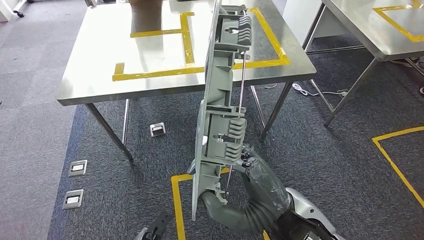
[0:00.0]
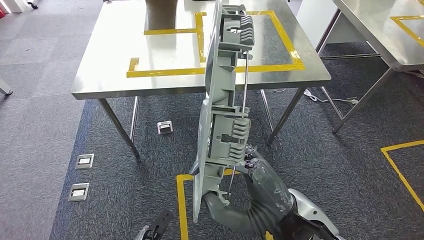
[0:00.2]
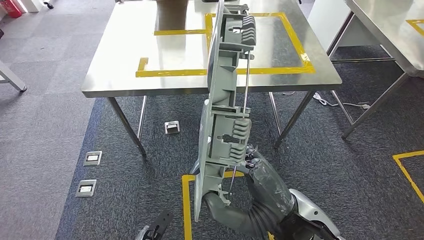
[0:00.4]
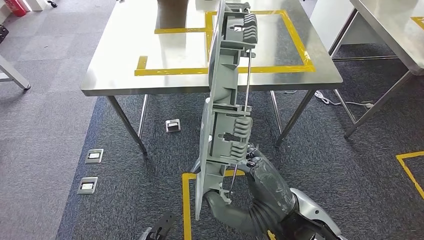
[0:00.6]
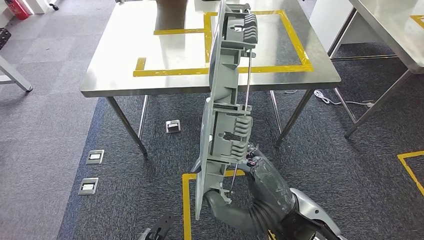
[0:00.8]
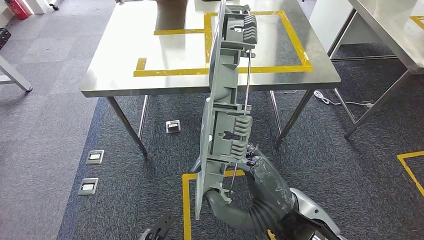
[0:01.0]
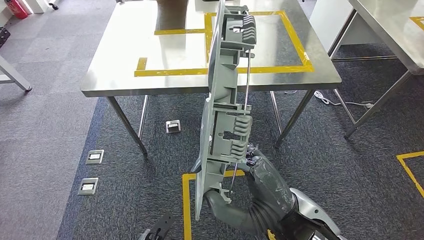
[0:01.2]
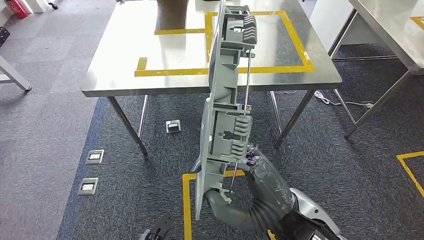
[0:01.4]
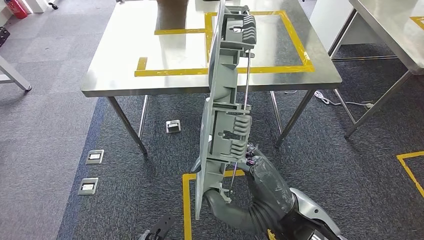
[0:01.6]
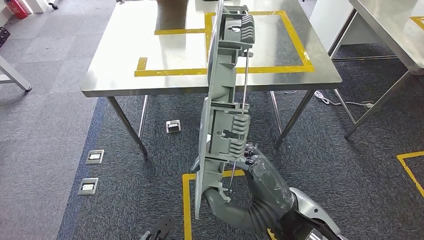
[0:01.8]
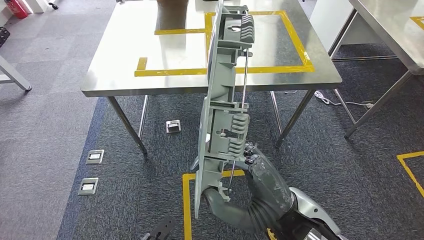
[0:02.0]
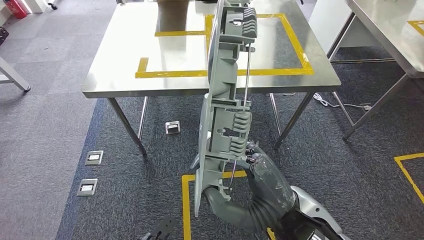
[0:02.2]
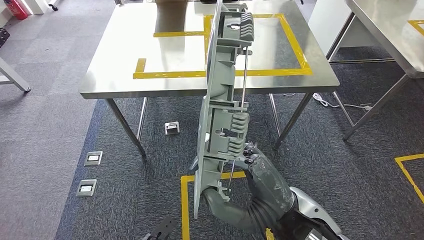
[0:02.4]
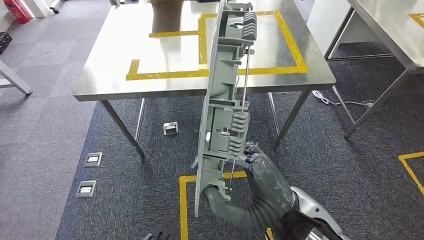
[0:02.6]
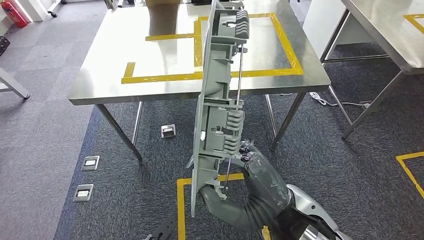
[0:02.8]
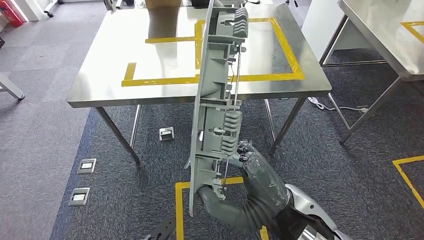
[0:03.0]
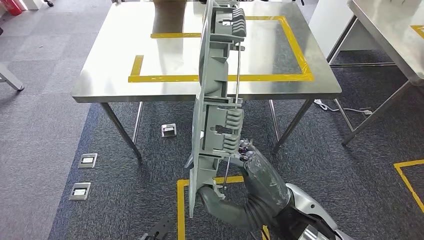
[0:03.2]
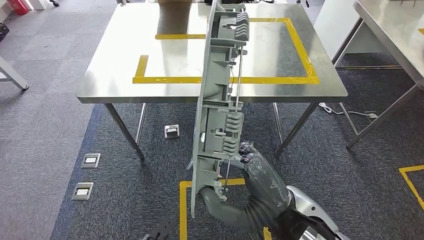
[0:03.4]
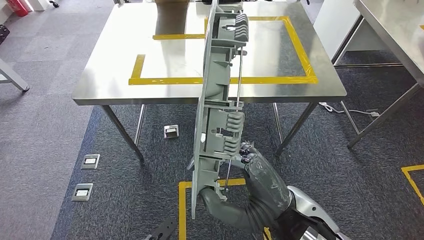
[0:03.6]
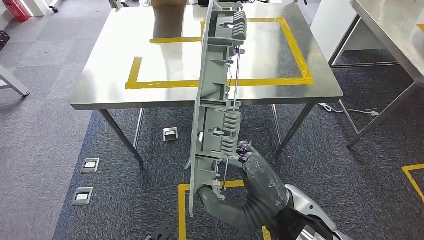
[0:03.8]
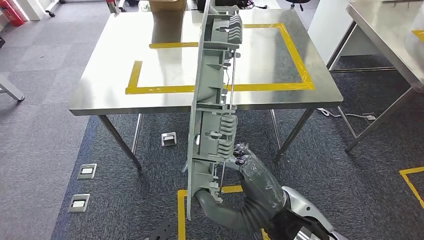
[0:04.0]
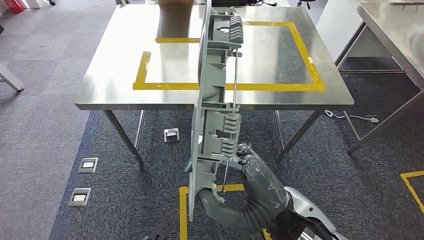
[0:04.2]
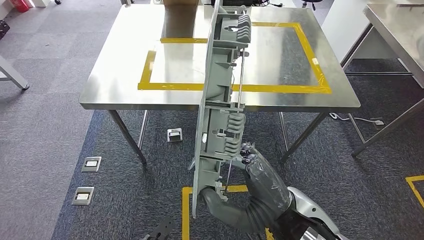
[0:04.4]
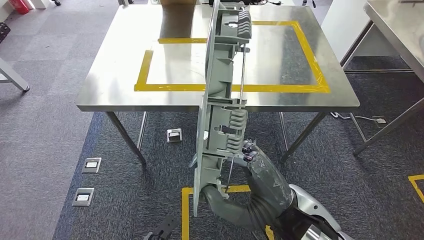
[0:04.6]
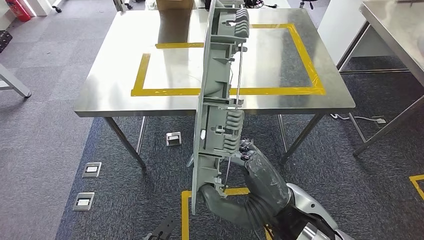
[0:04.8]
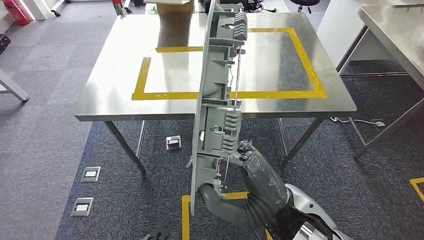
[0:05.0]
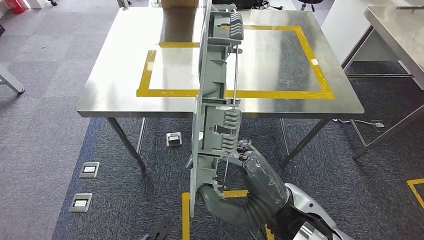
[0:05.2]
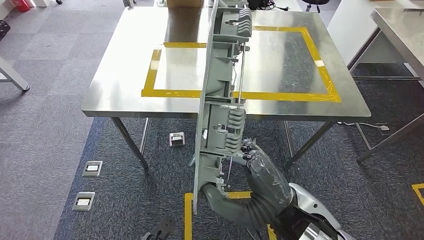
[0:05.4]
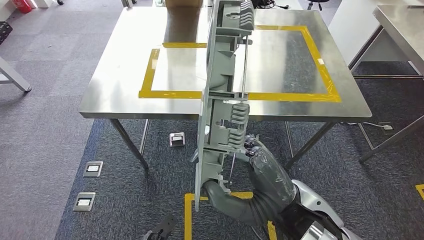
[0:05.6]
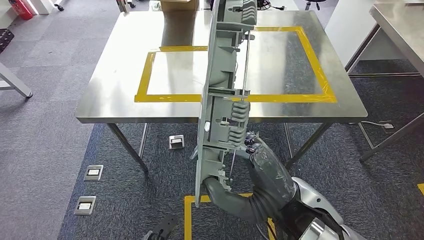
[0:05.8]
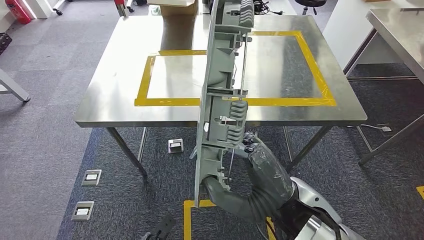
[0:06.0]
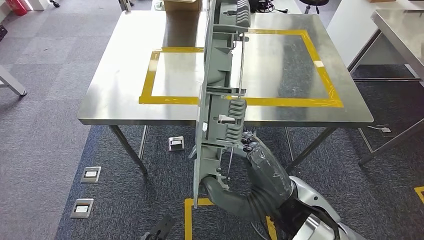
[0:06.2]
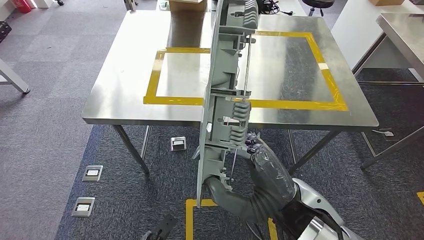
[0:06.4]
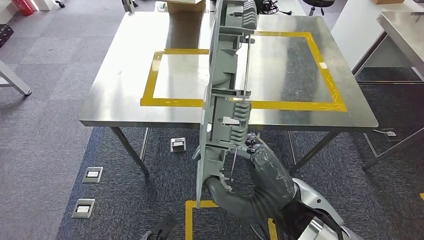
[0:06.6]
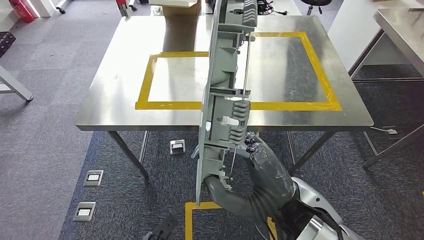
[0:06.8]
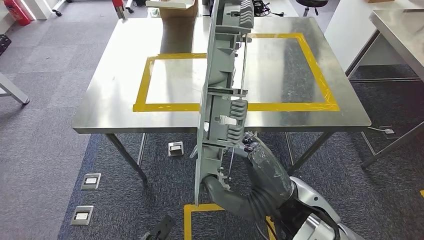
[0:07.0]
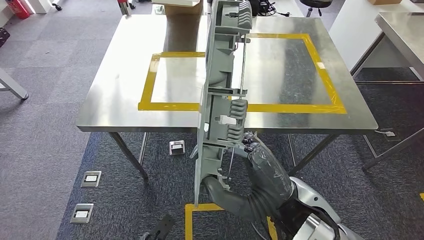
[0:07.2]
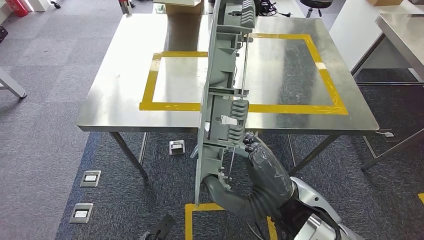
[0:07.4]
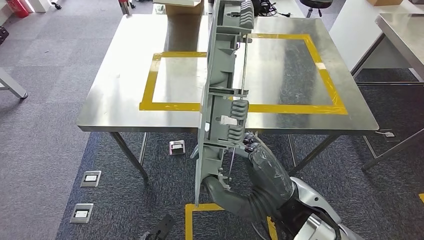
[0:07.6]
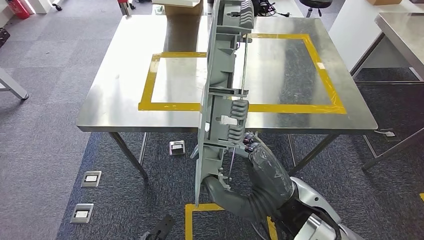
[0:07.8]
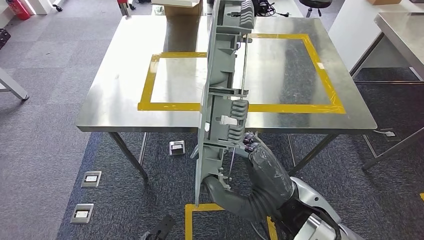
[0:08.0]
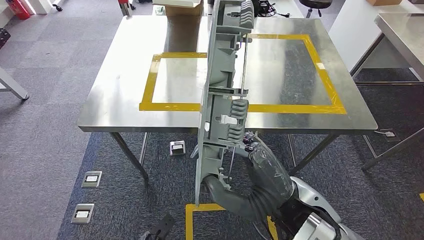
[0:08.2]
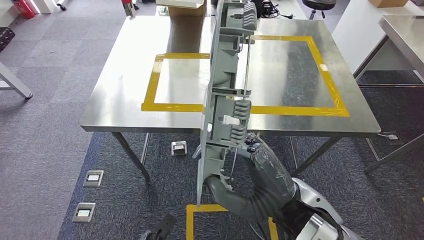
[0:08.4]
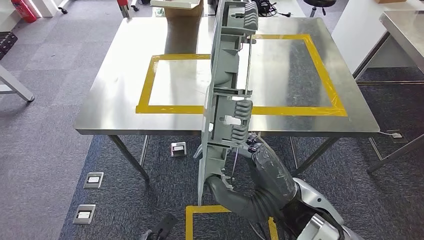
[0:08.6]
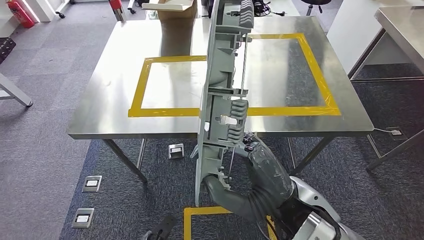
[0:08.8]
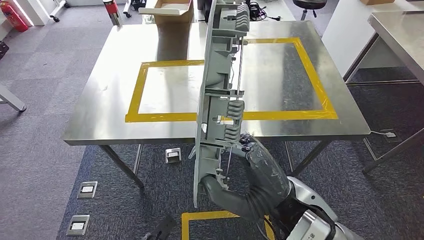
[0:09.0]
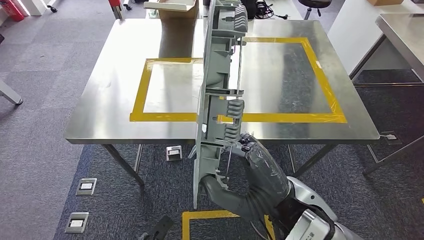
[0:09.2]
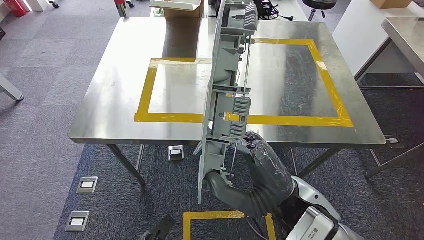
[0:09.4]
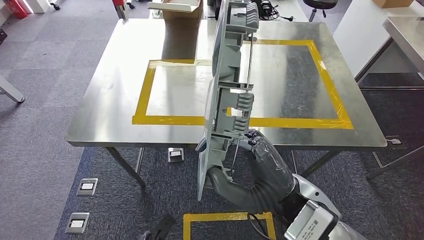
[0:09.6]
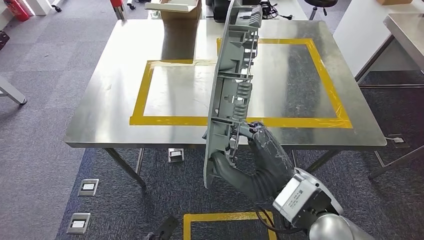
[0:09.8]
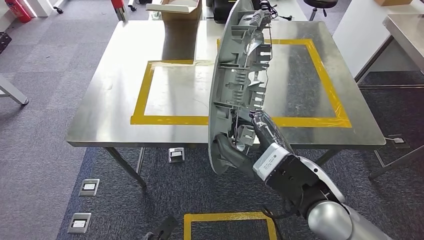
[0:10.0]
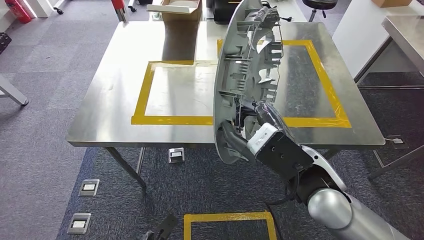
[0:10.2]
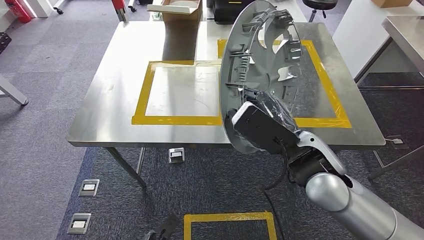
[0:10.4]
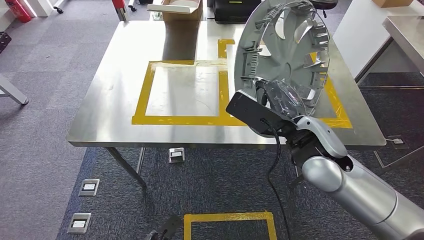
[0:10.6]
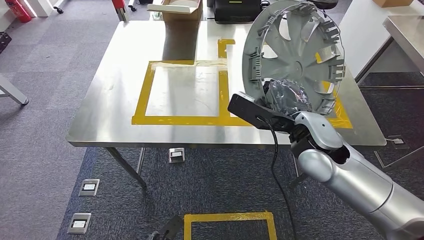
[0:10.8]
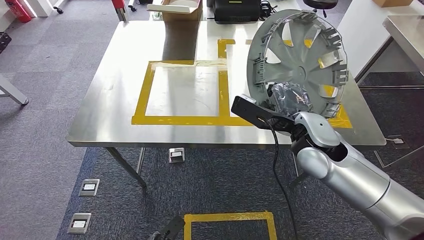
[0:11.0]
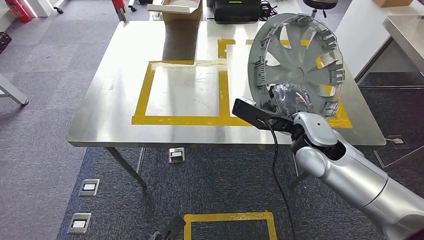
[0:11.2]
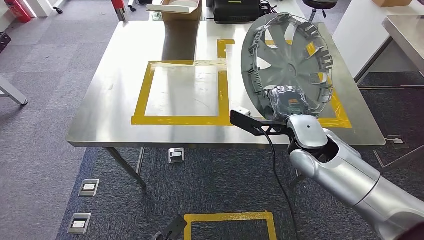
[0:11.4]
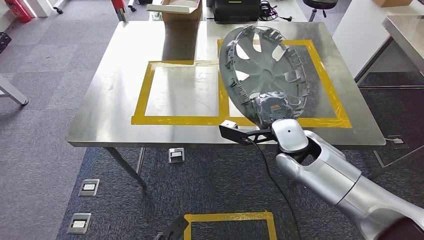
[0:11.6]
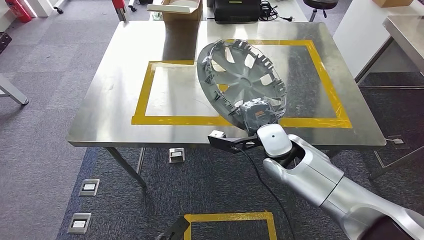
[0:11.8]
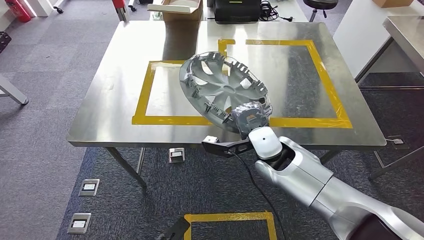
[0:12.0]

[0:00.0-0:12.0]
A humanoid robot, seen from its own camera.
Step, 0:00.0 to 0:07.0: Move the large material to the workbench.
0:06.0 to 0:07.6: The two hands keep their place.
0:10.4 to 0:12.0: The right hand moves downward and forward, about 10 cm.

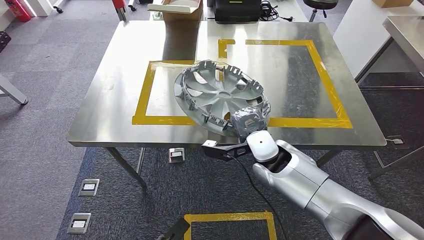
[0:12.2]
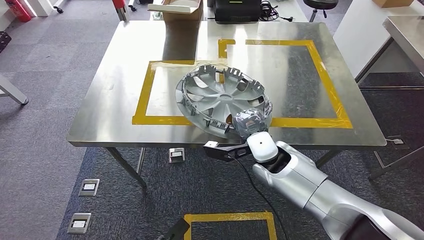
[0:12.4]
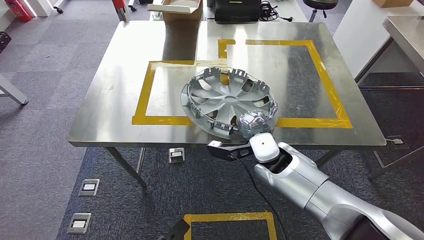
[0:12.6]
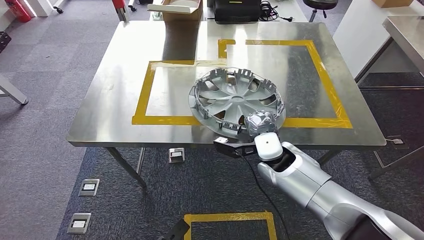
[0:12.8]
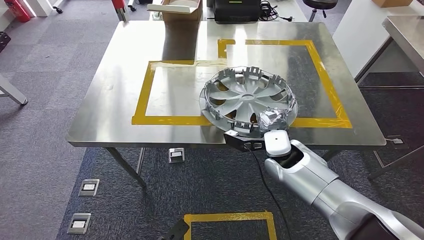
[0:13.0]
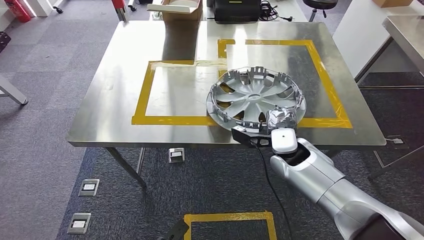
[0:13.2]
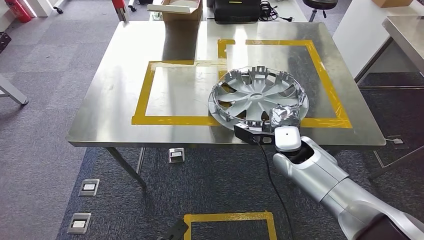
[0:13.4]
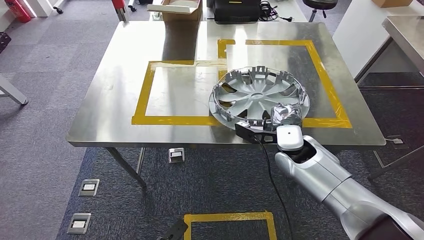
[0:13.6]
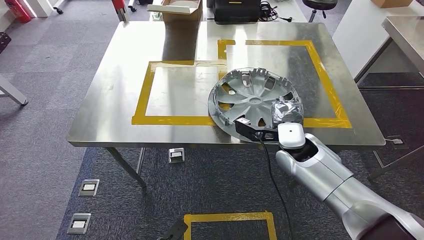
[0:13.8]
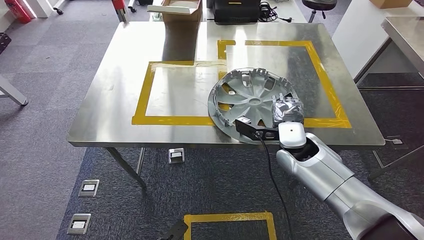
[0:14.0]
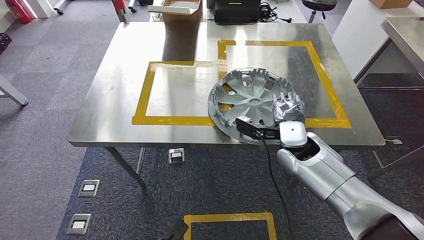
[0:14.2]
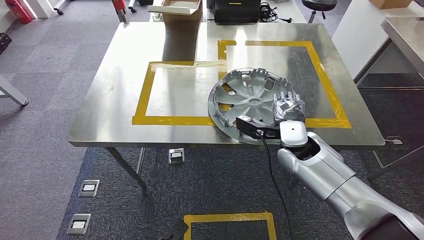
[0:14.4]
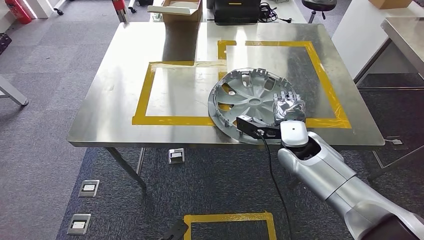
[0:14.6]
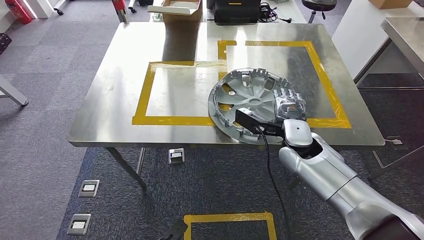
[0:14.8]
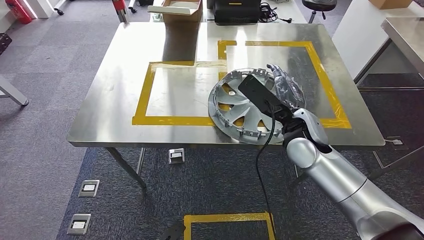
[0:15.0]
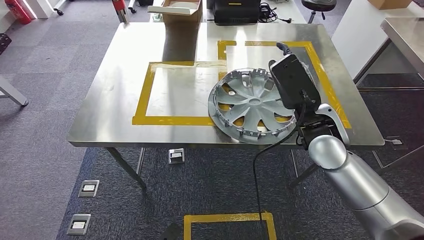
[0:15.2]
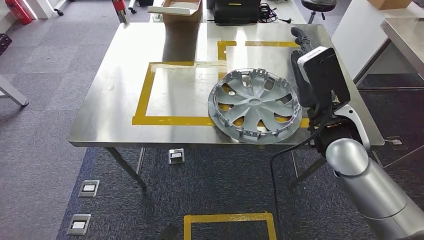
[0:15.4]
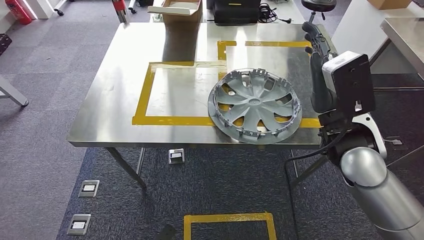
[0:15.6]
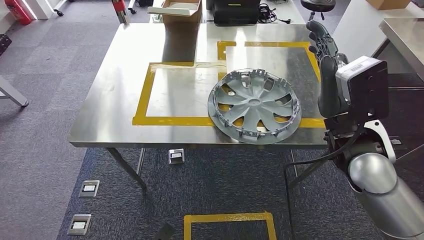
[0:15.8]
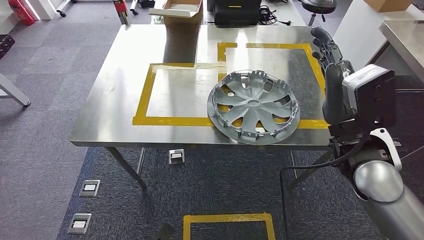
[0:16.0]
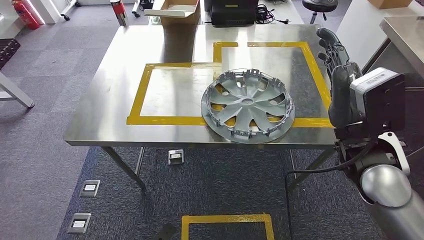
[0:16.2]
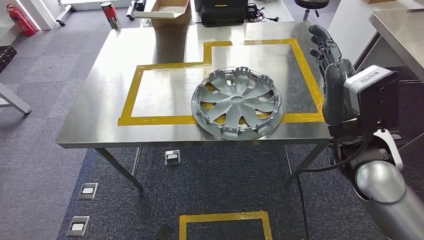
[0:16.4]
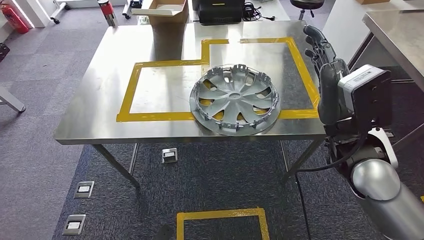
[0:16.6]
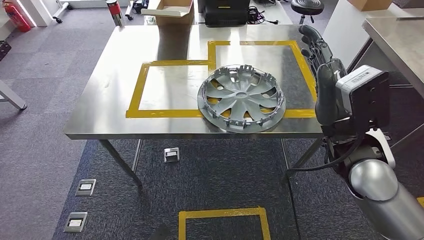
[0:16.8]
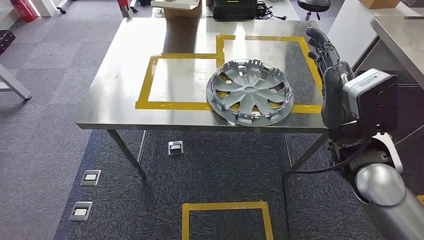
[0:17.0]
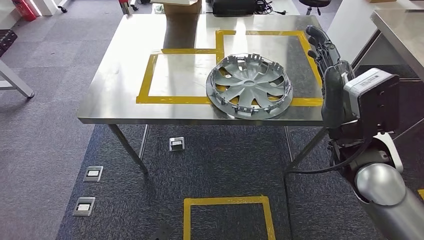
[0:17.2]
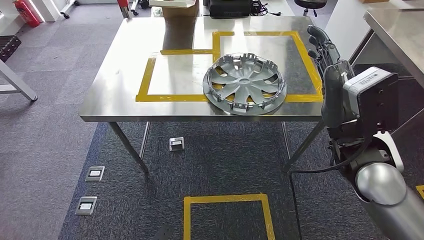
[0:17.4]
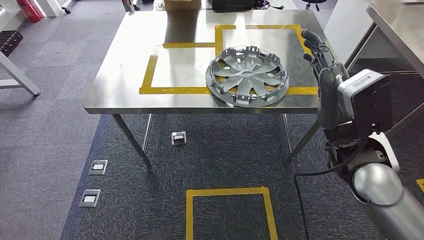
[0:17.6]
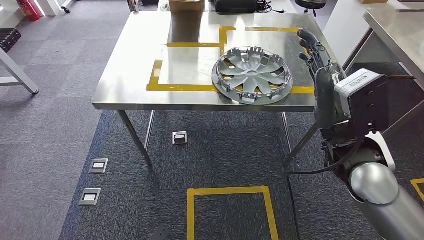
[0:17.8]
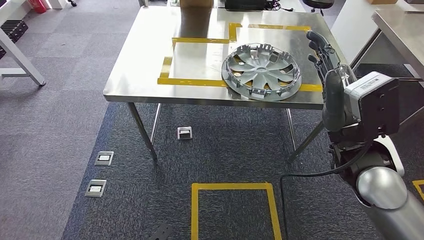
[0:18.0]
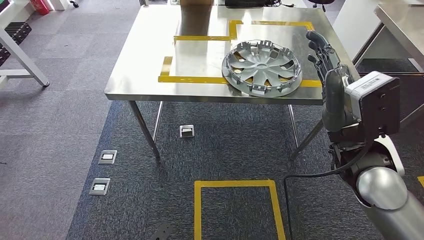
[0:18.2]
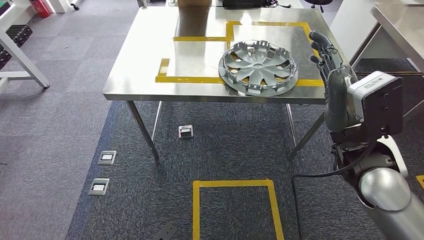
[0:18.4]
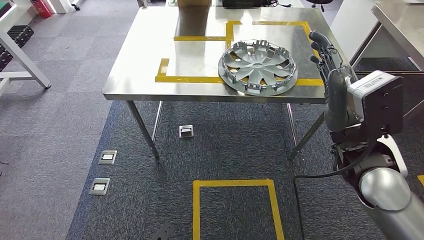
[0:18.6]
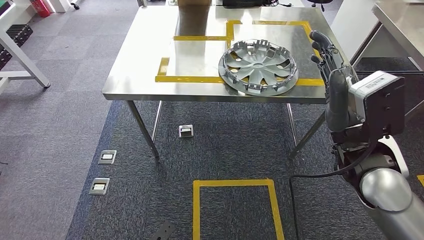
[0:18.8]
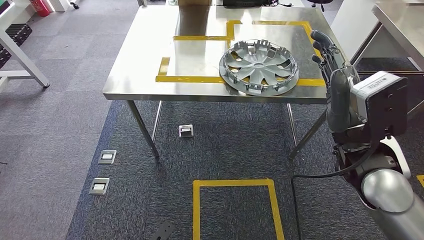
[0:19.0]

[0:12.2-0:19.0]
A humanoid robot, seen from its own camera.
Step, 0:12.2 to 0:15.4: Insert the large material into the corresponding slot on the workbench.
0:12.2 to 0:13.6: The right hand goes roughly 5 cm to the right.
0:13.6 to 0:15.0: The right hand travels upward by about 5 cm.
